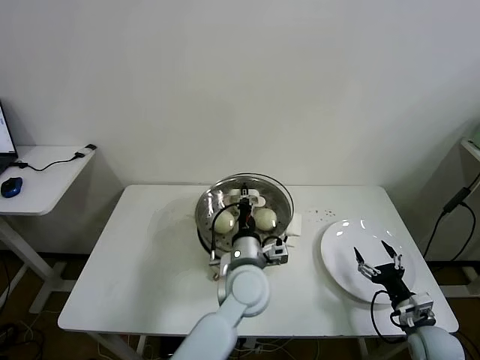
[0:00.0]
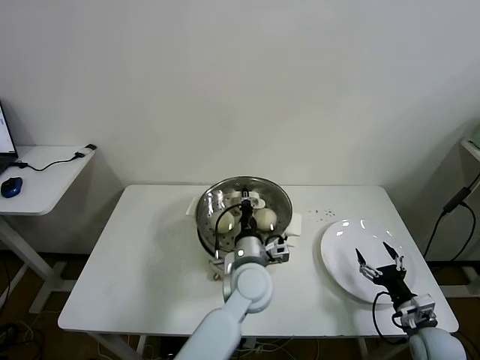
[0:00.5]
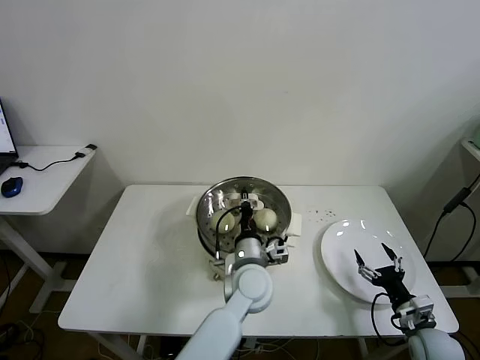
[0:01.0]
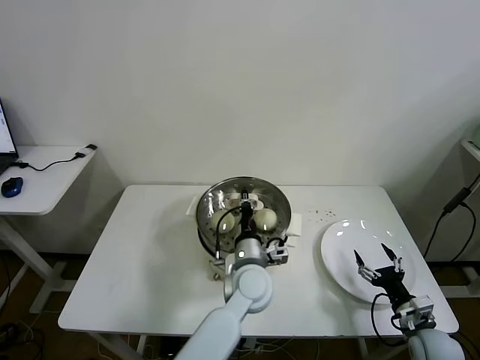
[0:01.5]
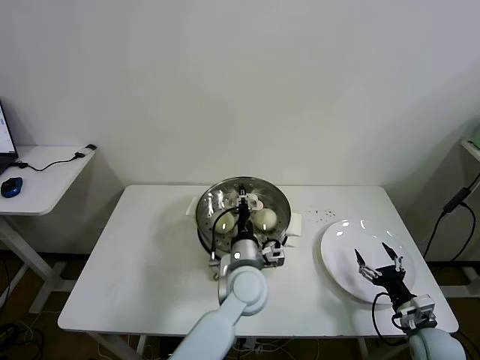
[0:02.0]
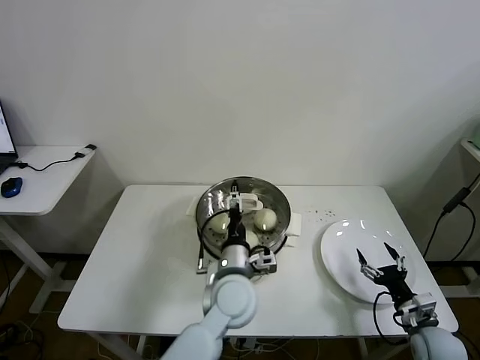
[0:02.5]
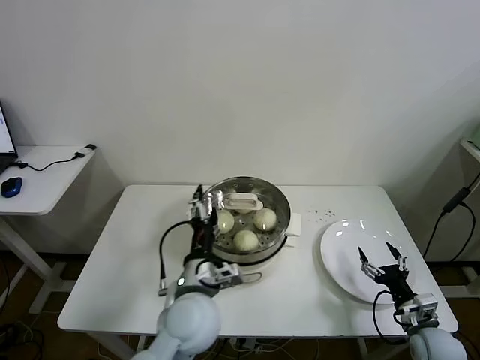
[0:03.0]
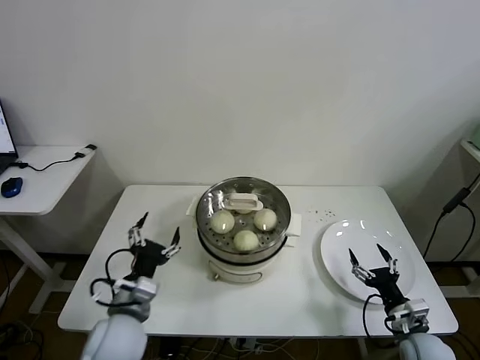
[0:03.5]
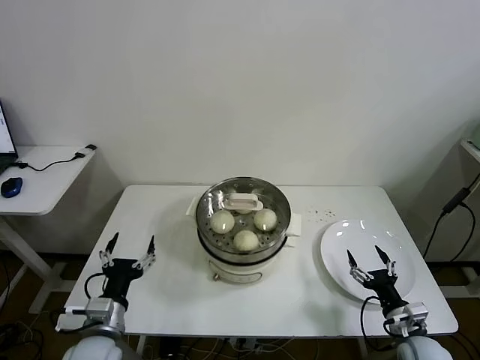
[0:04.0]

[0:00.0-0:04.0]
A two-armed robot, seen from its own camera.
Task of the whole recording: take steamed baozi put them in steamer then cover it.
Step, 0:00.0 to 0:02.0: Place the pot lid on the steamer with left gripper.
0:00.0 to 0:02.0: The grippers make only small movements.
0:02.0 to 0:04.0: The left gripper shifts approximately 30 cm to the left and backward, and opens its fingers.
